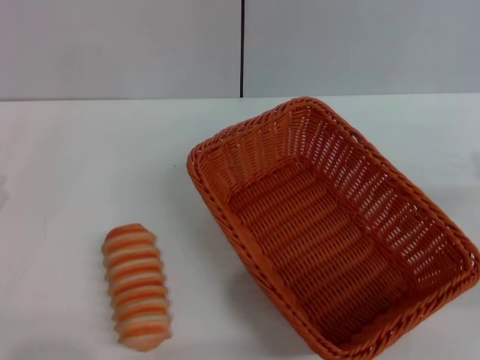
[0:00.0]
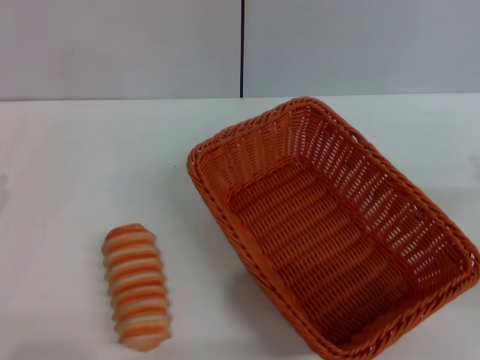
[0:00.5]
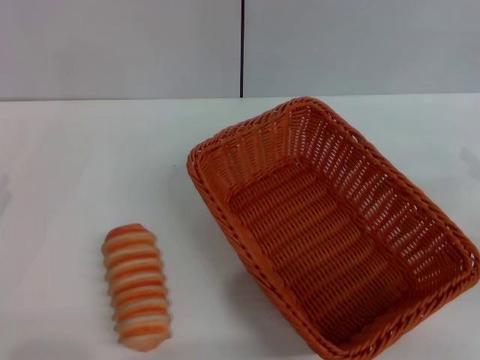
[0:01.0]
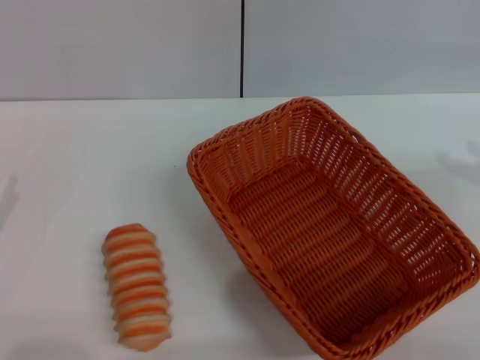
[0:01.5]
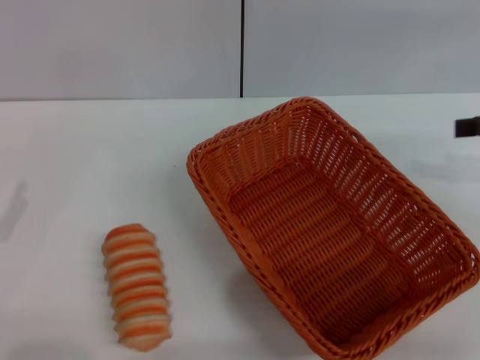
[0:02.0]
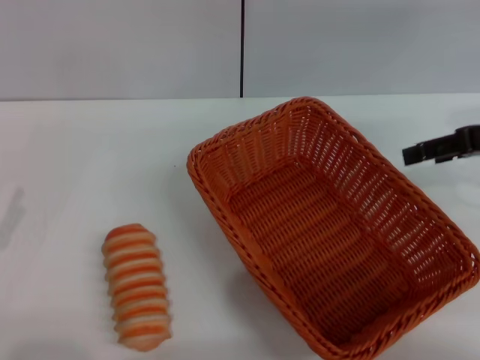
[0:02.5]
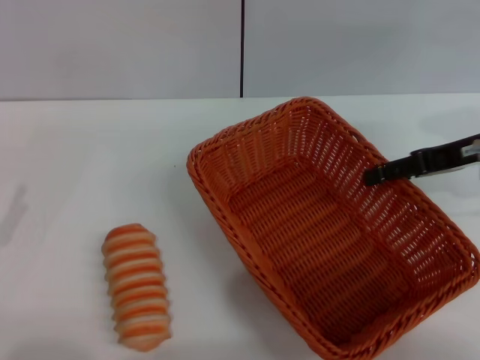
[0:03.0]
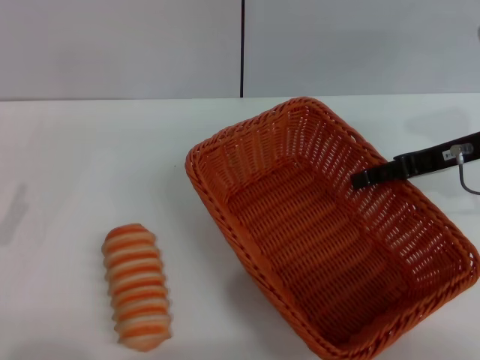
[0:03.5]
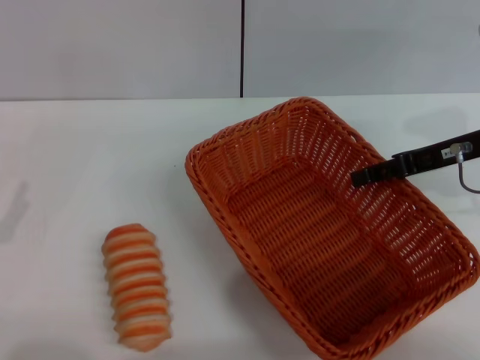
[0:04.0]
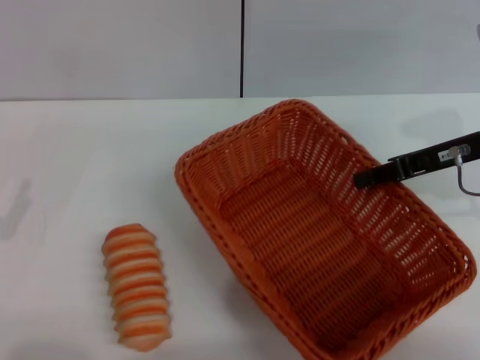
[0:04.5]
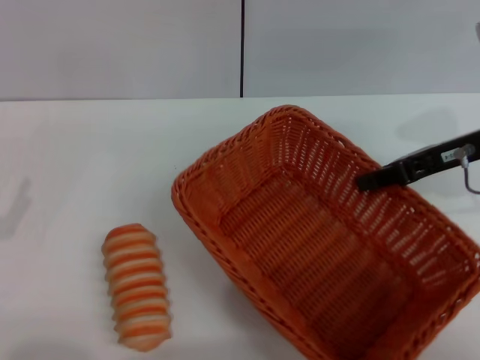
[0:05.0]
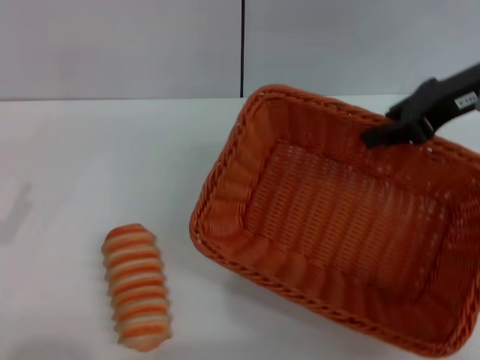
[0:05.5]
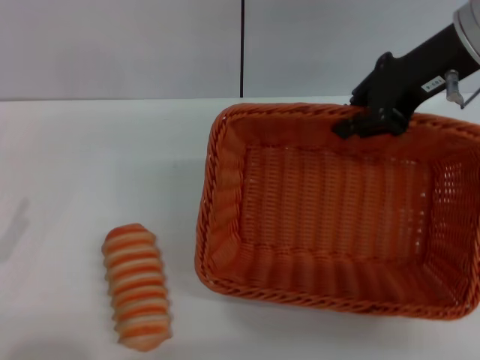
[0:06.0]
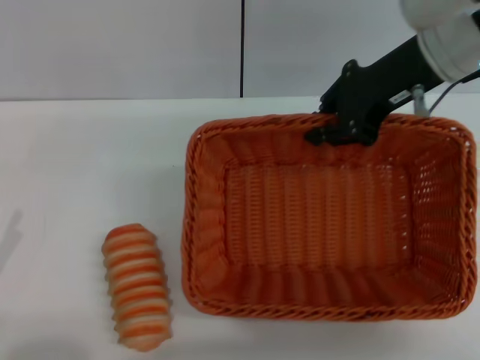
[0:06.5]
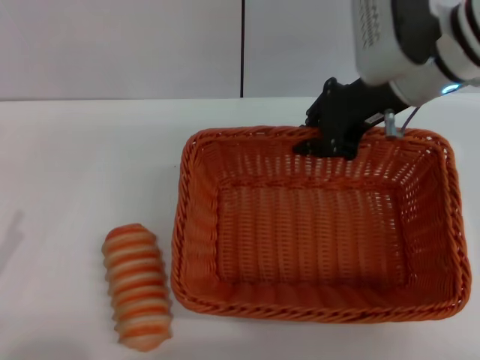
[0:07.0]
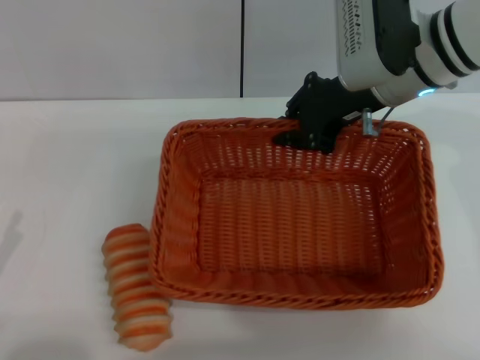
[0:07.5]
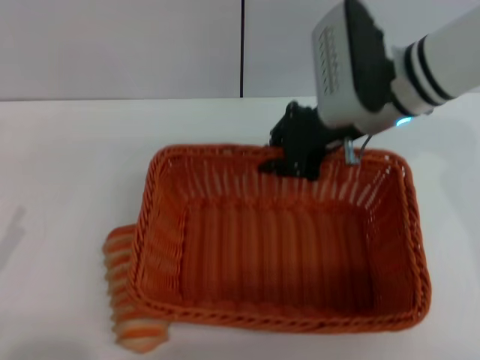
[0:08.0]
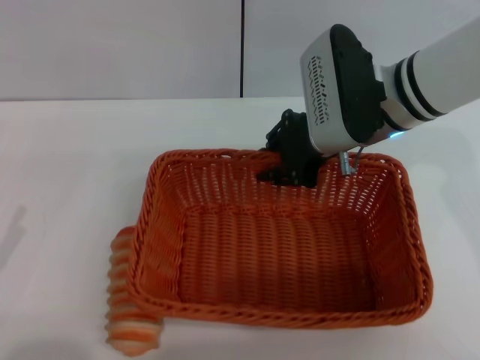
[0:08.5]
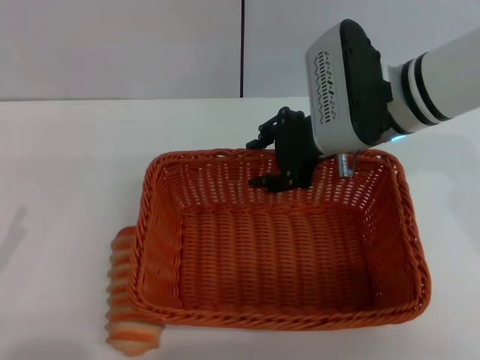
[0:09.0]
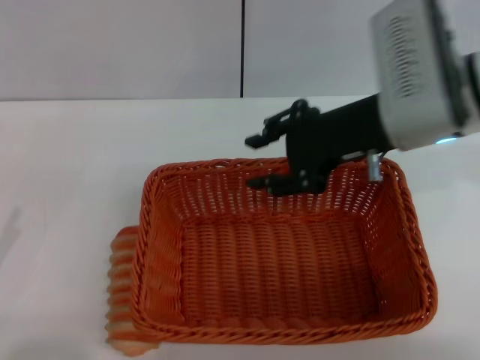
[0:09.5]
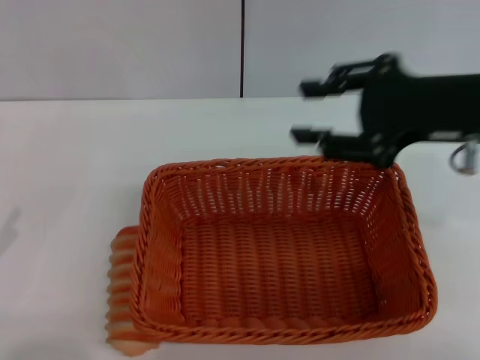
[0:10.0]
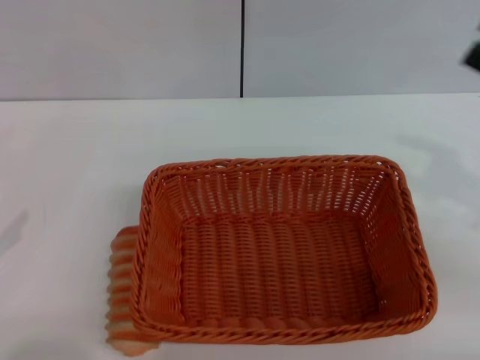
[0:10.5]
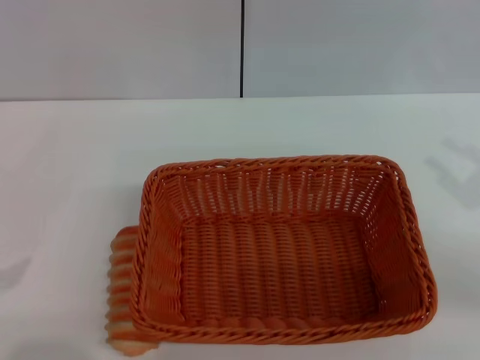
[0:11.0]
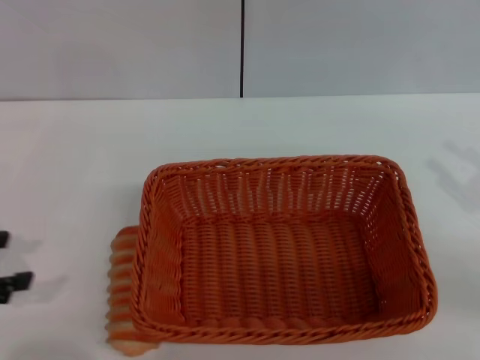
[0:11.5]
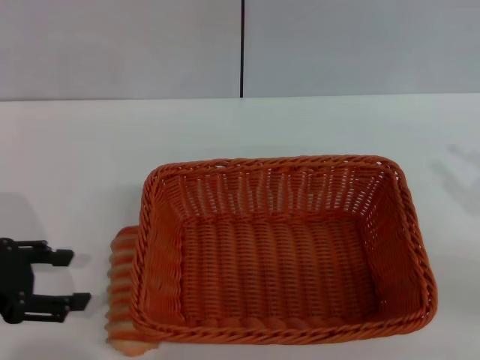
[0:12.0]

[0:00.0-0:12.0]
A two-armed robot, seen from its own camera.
Step, 0:00.0 to 0:05.0: Pick up the light basket with the right gripper.
Step, 0:05.5 to 0:09.5: Place the light basket in the center of view with the right gripper.
0:02.0 to 0:04.0: The right gripper moves to the left and downward, approximately 10 cm.
0:04.0 to 0:06.0: The right gripper shifts roughly 10 cm upward and to the left, and closes its fingers.
0:06.0 to 0:08.0: The right gripper travels downward and to the left by approximately 10 cm.
0:08.0 to 0:10.0: The right gripper travels to the right, backward and upward by some 15 cm, and opens.
0:10.0 to 0:12.0: The right gripper moves to the right, downward and backward, about 20 cm; the left gripper shifts roughly 10 cm forward and to the right.

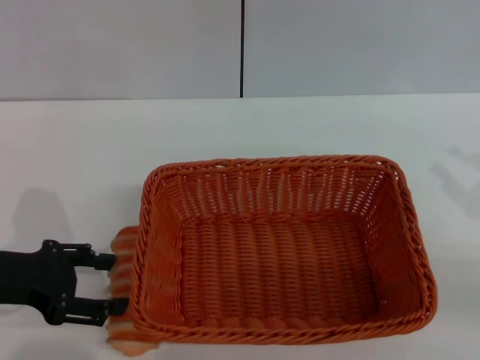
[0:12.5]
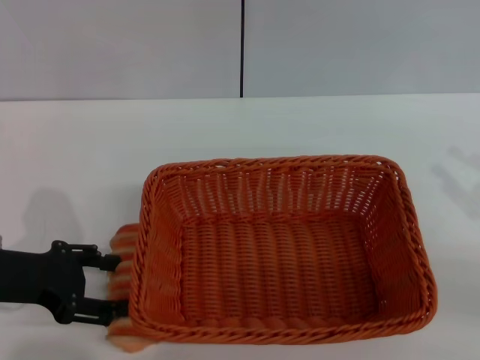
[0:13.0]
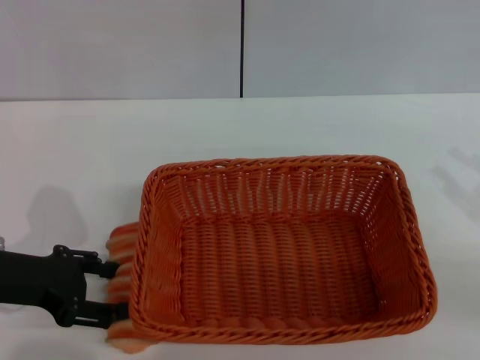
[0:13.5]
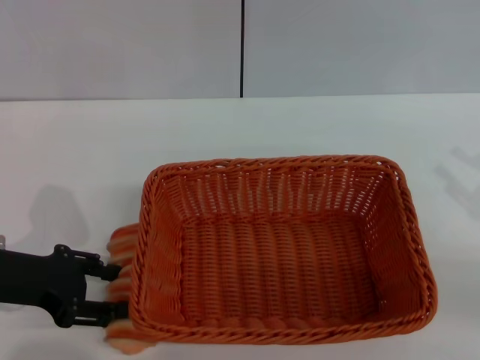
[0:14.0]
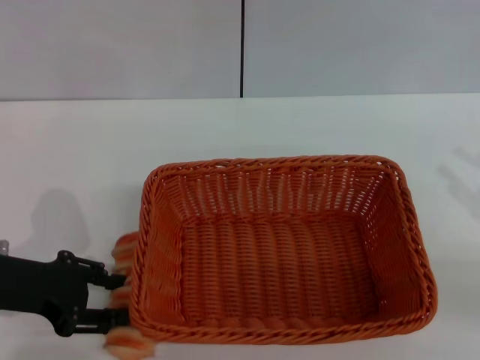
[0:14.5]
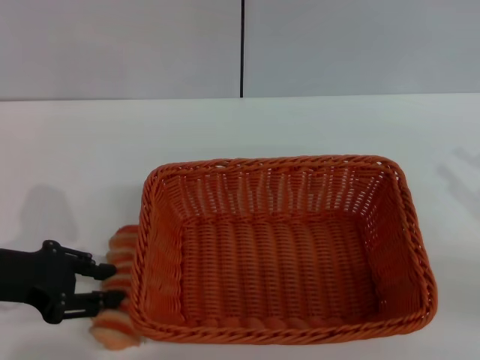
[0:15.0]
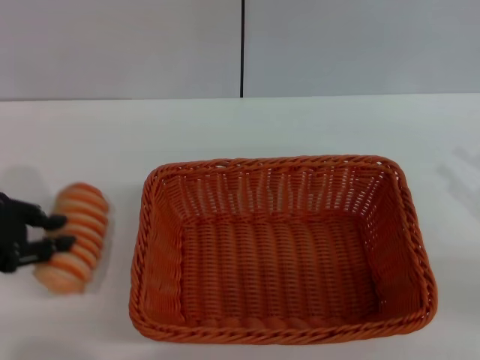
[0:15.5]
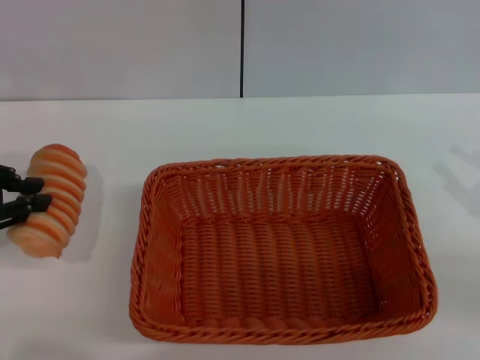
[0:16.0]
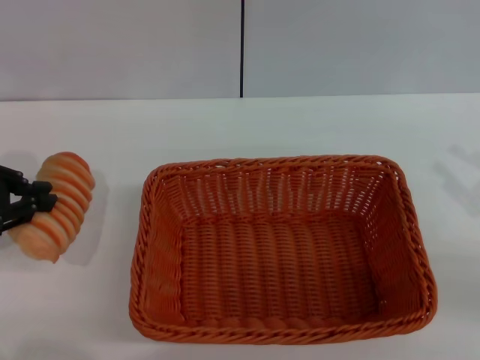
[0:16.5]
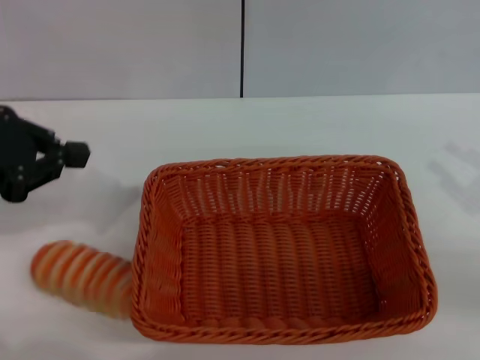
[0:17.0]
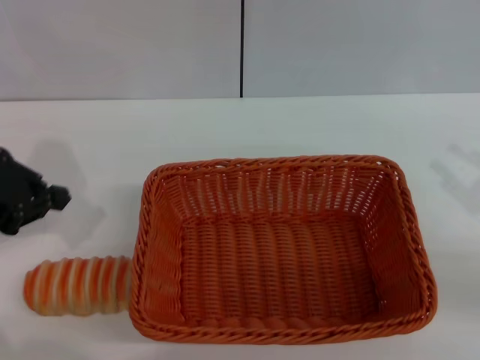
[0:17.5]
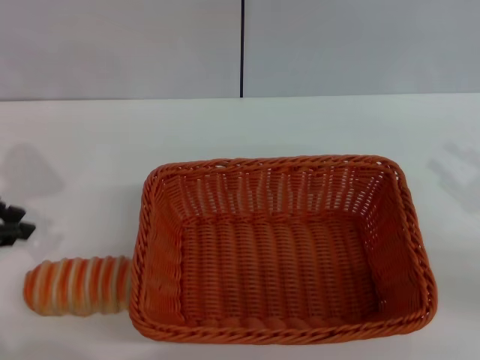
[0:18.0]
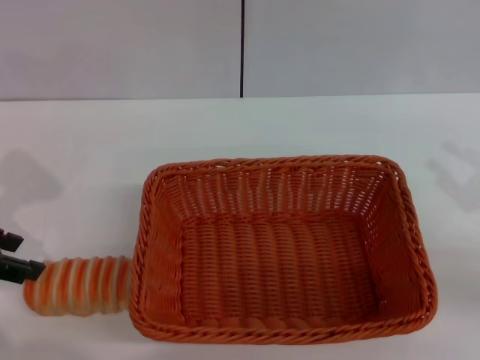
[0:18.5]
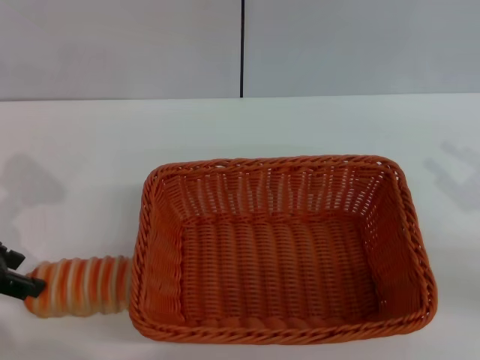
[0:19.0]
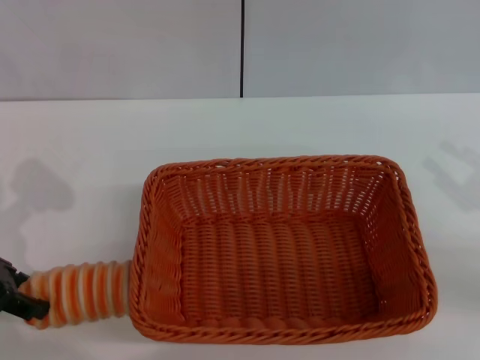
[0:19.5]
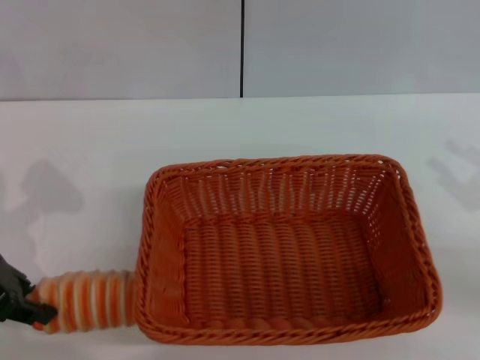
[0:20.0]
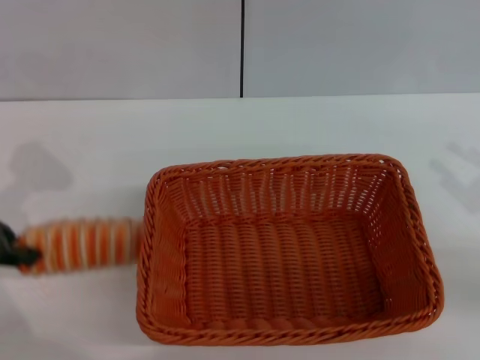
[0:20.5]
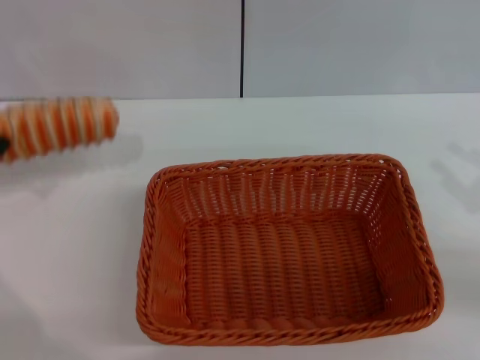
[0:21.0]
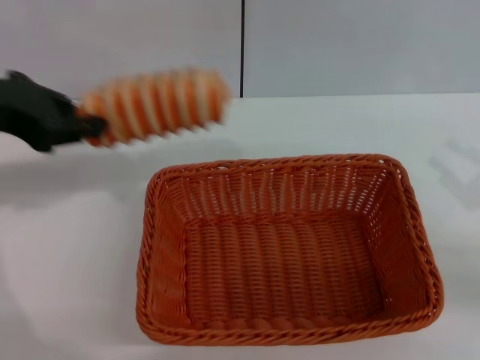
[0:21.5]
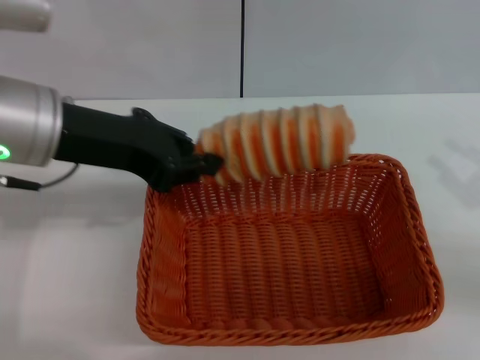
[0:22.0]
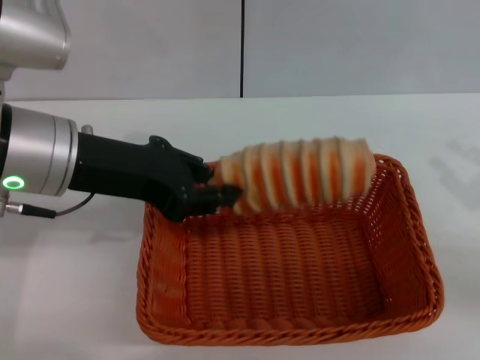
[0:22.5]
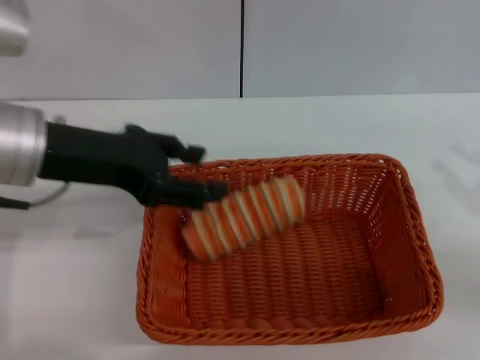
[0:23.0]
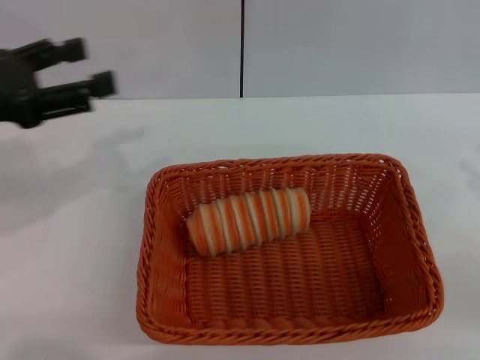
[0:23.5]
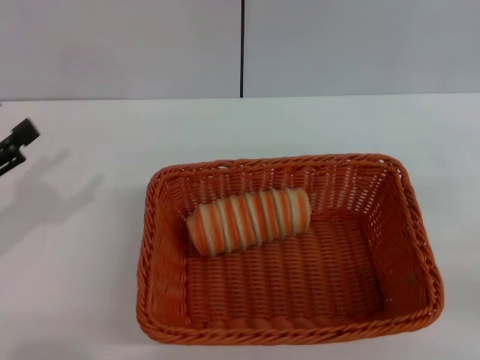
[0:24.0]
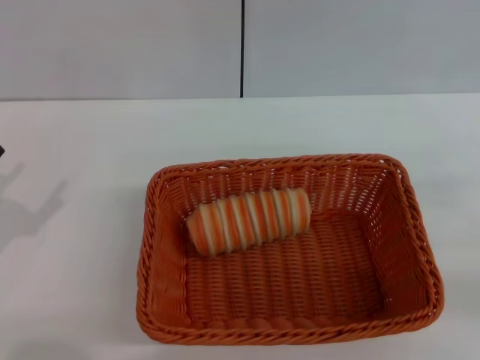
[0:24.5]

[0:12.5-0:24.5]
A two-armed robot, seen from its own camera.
Step, 0:12.5 to 0:20.5: Pick up the long bread with the left gripper.
Step, 0:21.0 to 0:23.0: Place the long bread into the light basket with the left gripper.
0:12.5 to 0:14.5: The grippers stay close to where they were, moving slightly.
0:14.5 to 0:16.5: The left gripper is displaced upward by some 10 cm, and closes up.
0:16.5 to 0:18.5: The left gripper opens up.
0:18.5 to 0:20.5: There are only small adjustments of the grippers.
0:20.5 to 0:22.5: The left gripper moves to the right, approximately 15 cm.
0:22.5 to 0:24.5: The left gripper shifts some 25 cm to the left, downward and backward, and opens.

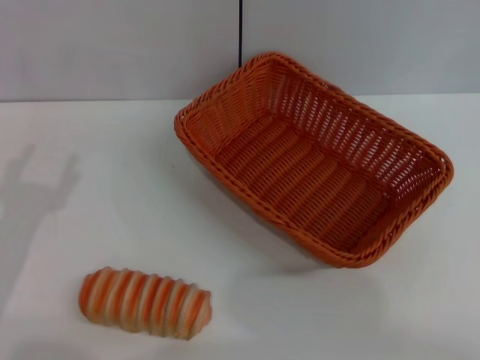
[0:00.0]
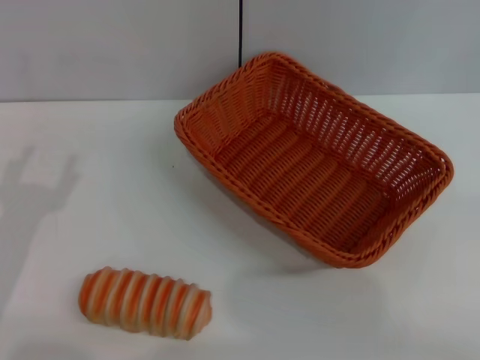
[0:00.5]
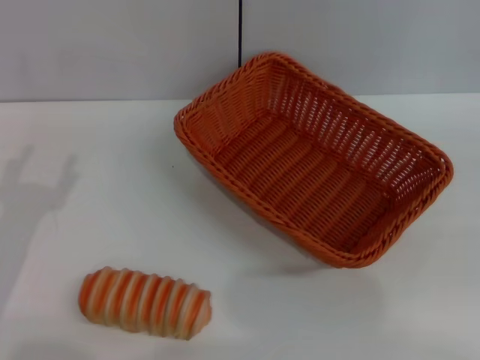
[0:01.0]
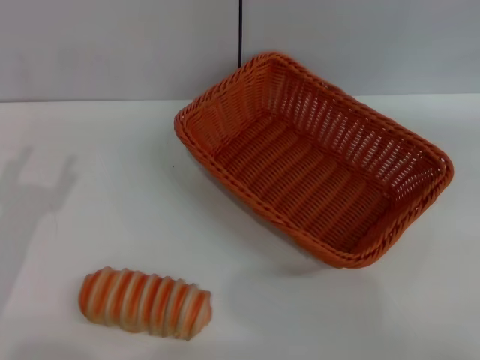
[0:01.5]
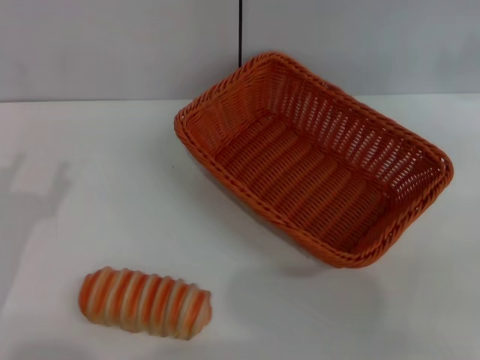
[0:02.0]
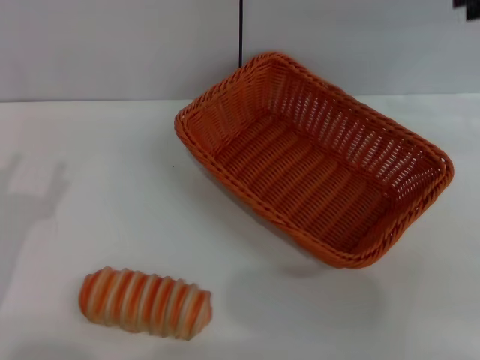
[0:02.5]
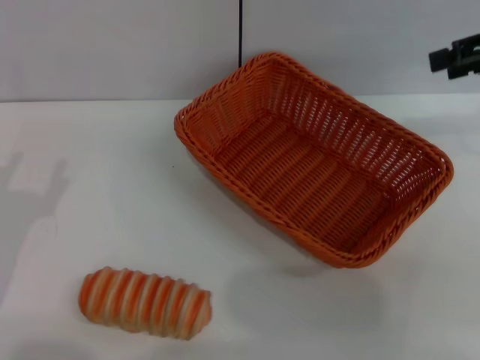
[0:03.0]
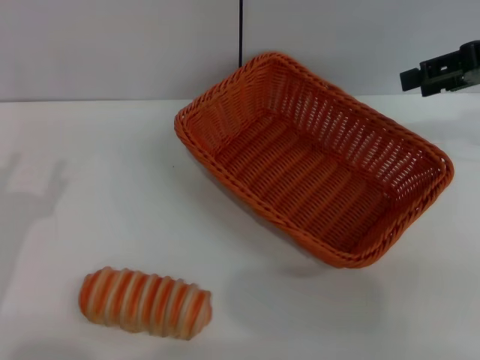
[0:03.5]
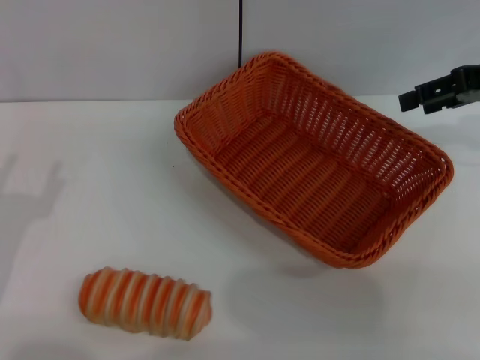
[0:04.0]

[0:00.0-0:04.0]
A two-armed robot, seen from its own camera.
0:00.0 to 0:02.0: The right gripper shifts about 35 cm upward and forward.
0:02.0 to 0:04.0: The right gripper shifts approximately 15 cm downward and to the left.
